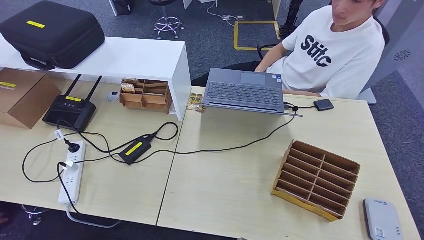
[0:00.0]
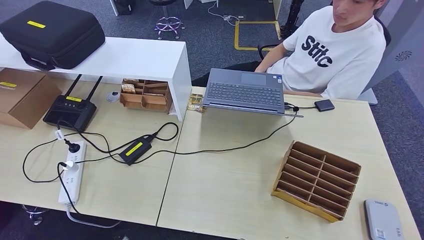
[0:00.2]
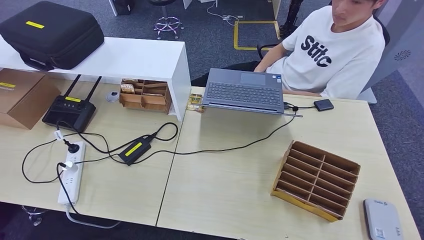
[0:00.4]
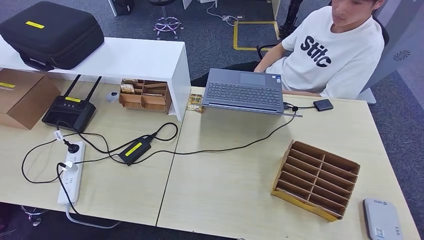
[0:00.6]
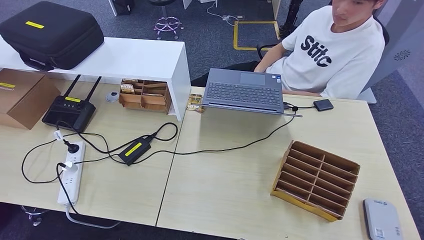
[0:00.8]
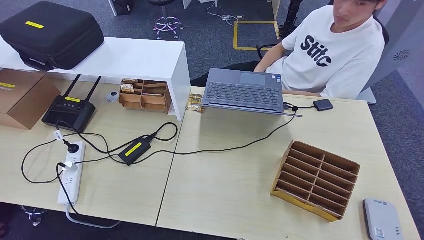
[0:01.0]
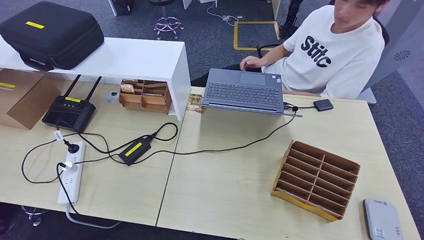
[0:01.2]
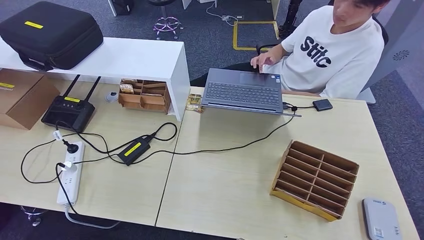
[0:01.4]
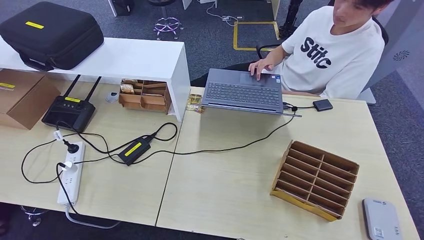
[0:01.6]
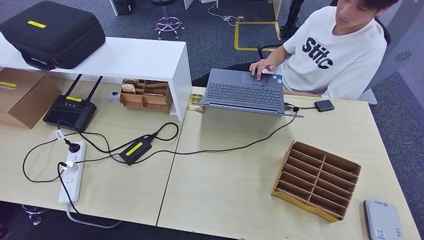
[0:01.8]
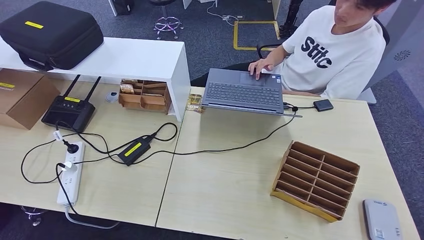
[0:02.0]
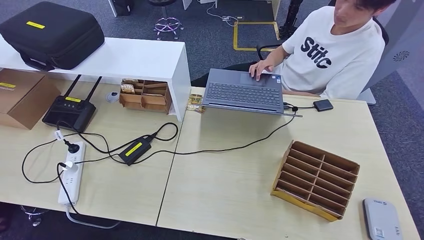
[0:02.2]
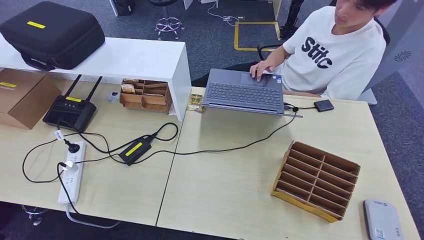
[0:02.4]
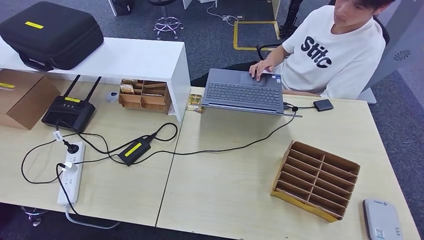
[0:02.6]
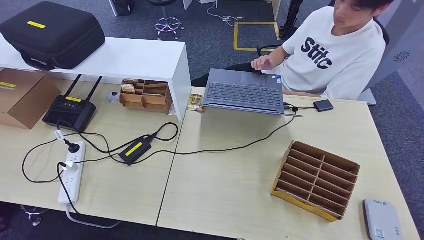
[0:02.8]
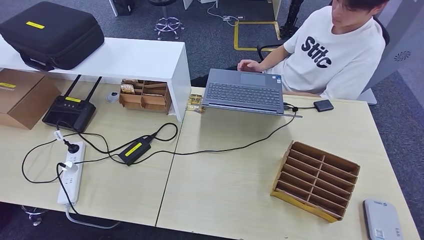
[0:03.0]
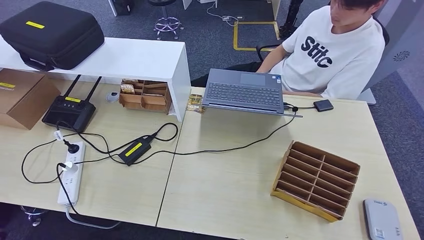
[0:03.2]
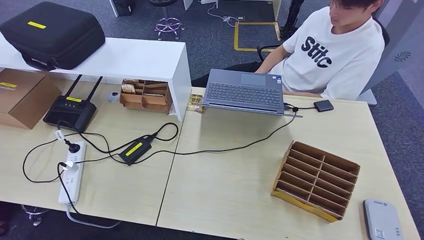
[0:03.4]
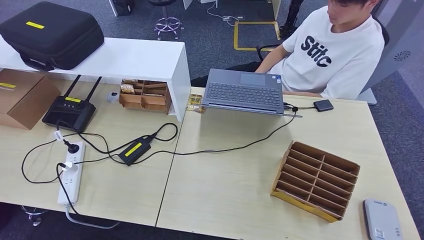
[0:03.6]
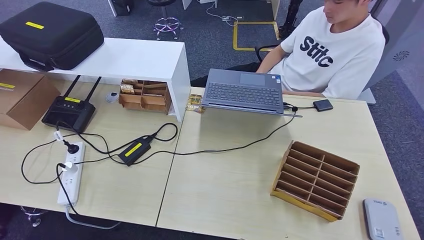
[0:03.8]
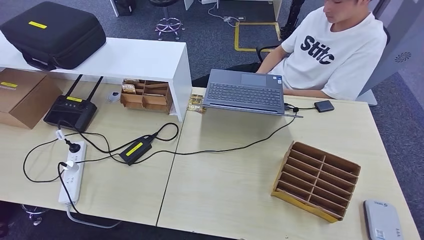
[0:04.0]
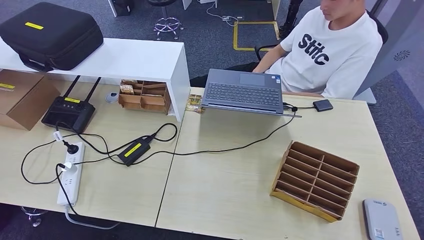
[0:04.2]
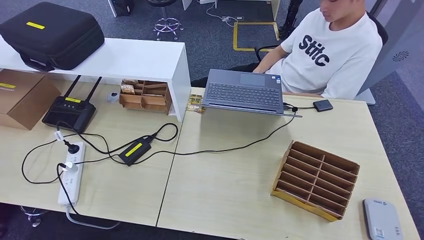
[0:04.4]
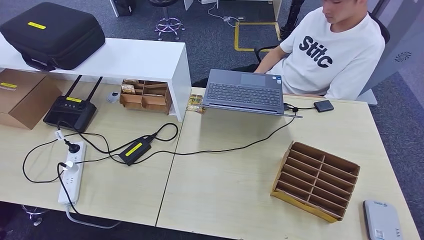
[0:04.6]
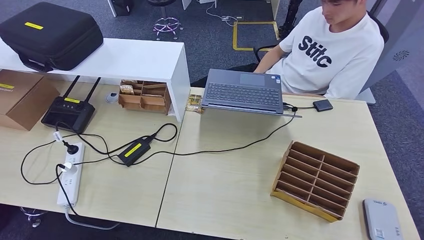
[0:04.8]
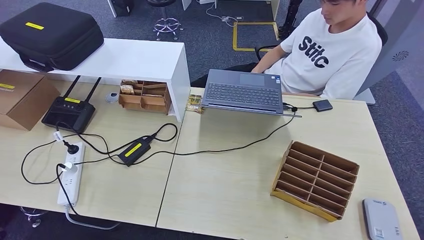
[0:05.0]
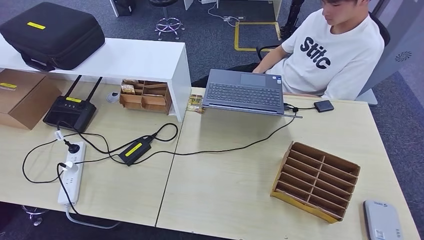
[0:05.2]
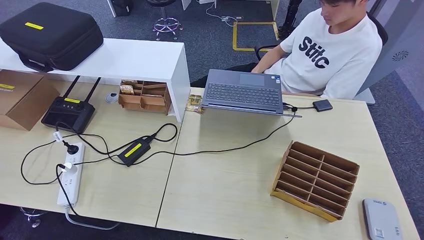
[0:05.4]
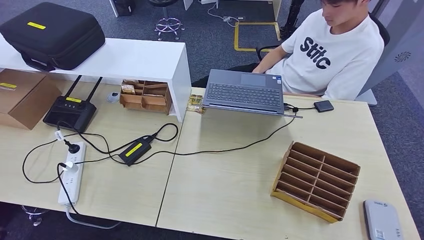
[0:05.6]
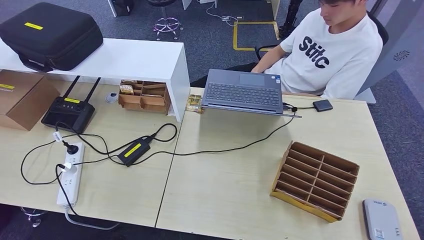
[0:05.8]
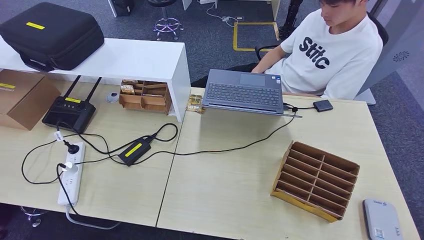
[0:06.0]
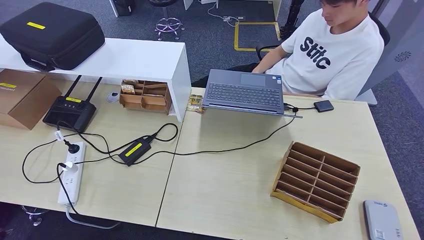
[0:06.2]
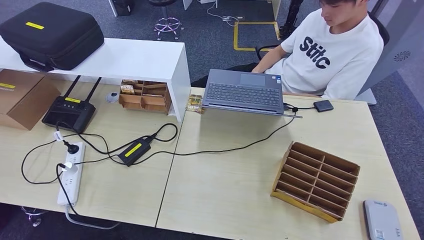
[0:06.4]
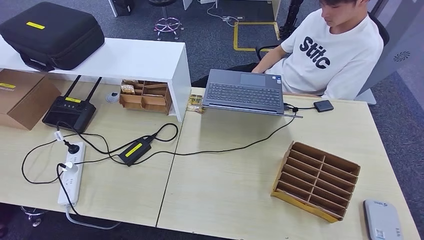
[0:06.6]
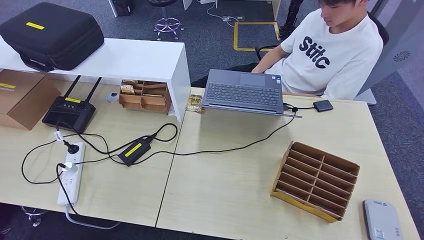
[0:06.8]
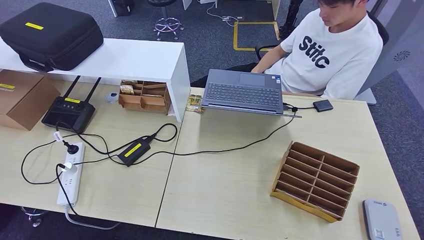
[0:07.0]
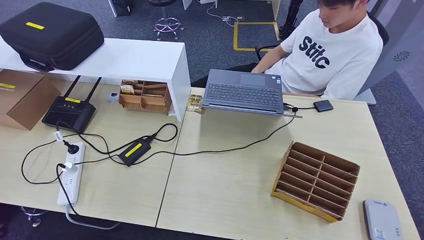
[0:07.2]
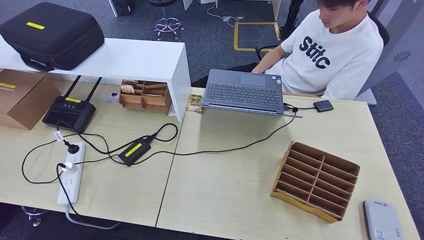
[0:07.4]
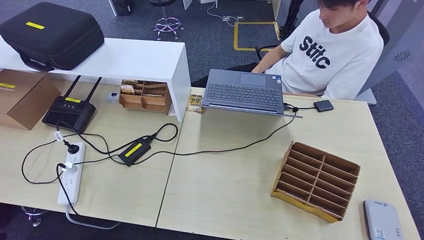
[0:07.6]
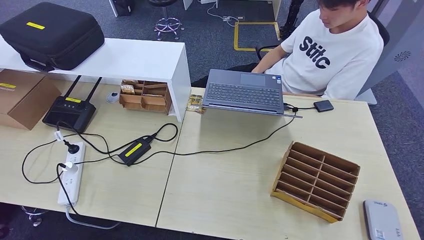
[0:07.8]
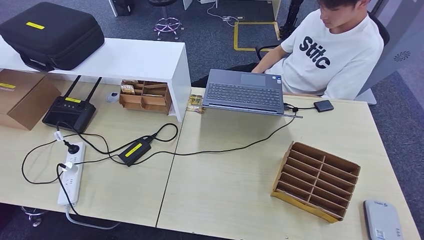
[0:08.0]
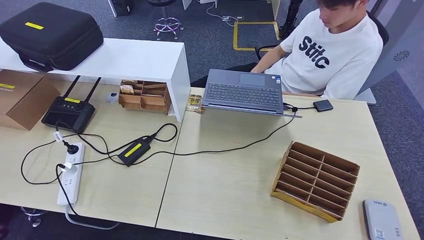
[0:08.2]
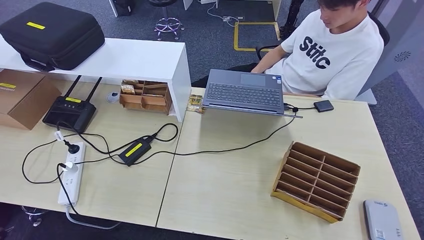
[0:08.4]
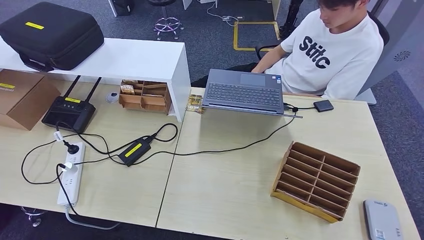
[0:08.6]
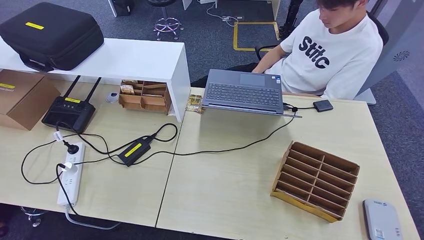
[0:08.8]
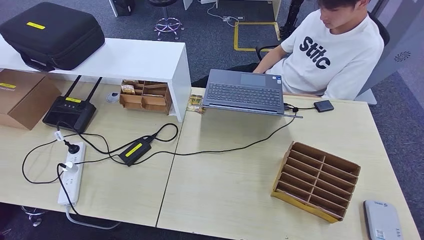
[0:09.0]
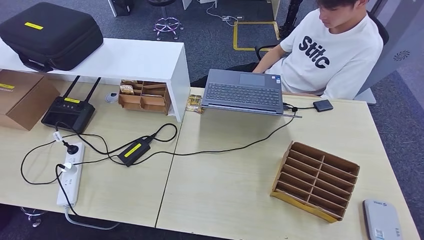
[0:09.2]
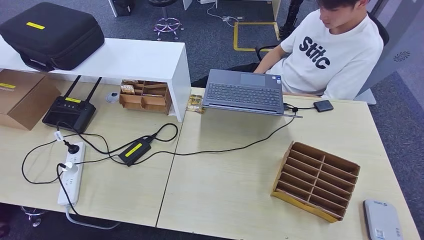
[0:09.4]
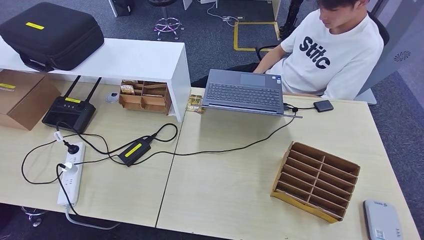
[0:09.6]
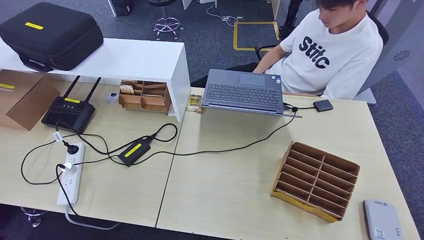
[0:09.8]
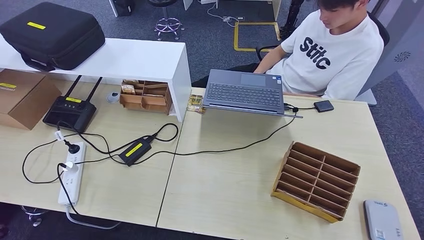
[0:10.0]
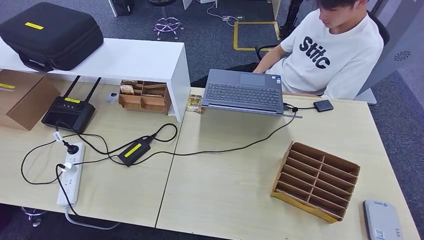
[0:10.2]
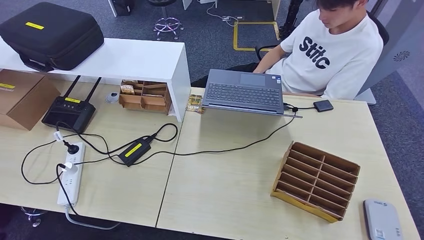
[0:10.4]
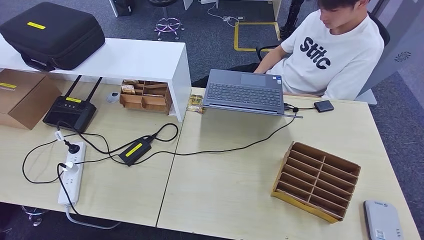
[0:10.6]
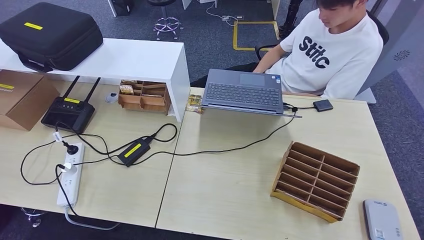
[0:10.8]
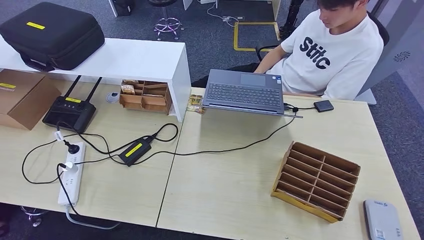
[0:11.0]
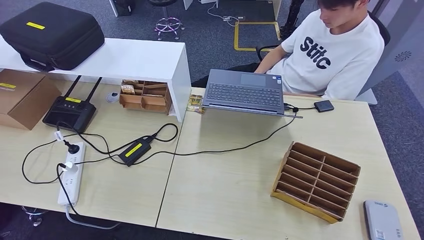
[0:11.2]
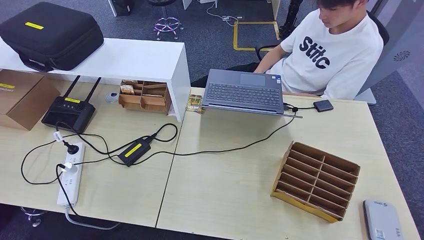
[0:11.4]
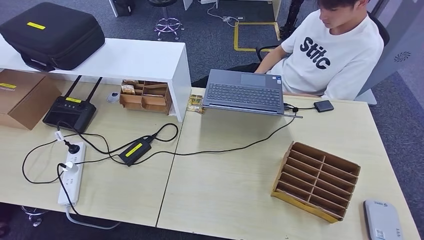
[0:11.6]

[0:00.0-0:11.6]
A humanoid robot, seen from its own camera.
Step, 0:00.0 to 0:11.6: Hand the room key to the person.
0:05.8 to 0:07.2: The hands make only small movements.

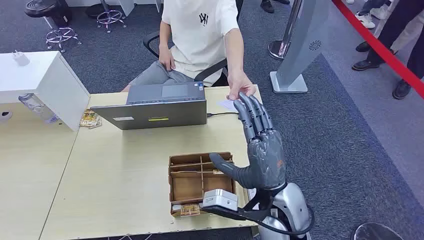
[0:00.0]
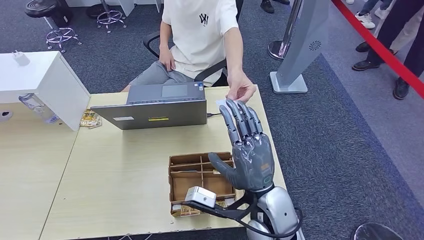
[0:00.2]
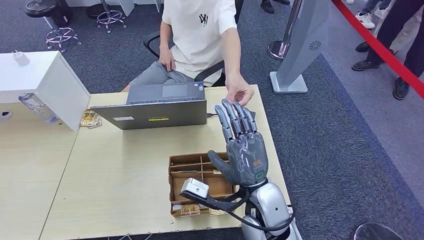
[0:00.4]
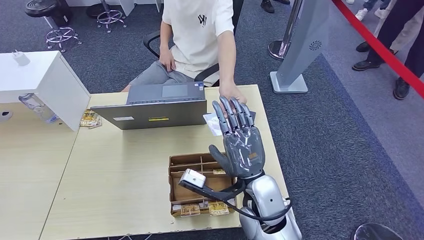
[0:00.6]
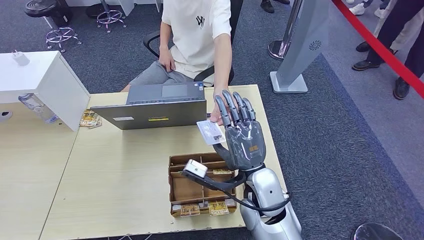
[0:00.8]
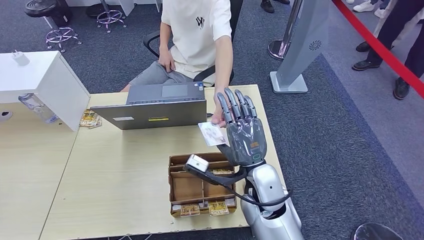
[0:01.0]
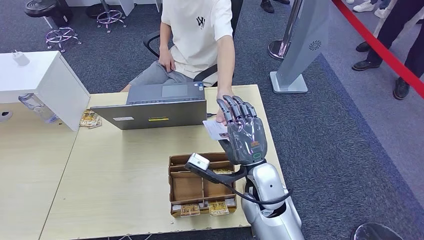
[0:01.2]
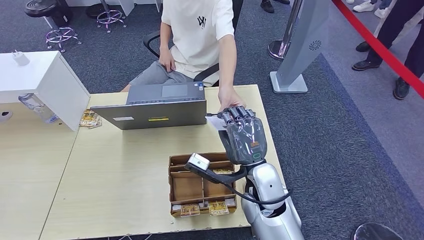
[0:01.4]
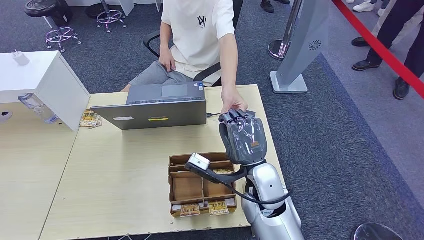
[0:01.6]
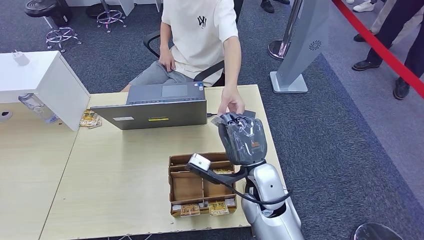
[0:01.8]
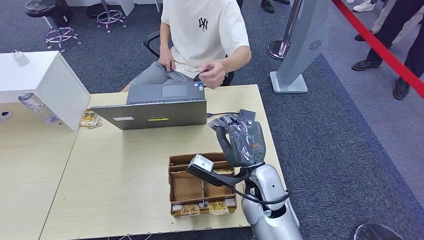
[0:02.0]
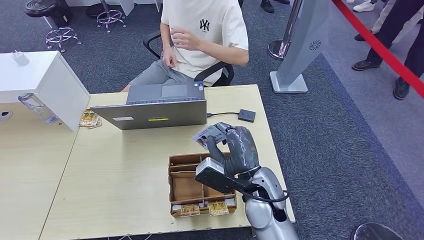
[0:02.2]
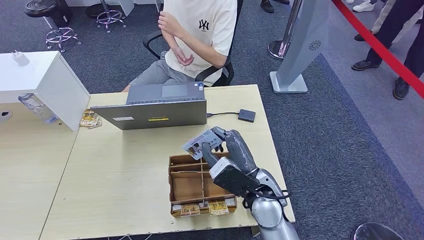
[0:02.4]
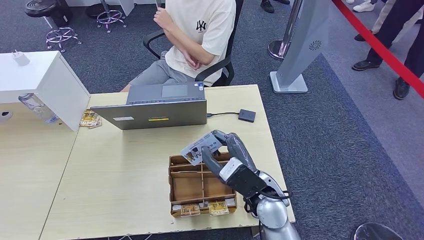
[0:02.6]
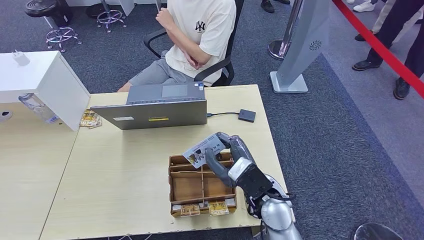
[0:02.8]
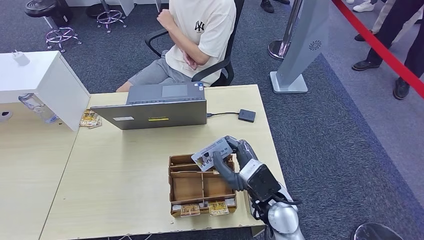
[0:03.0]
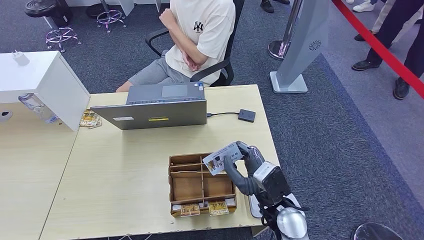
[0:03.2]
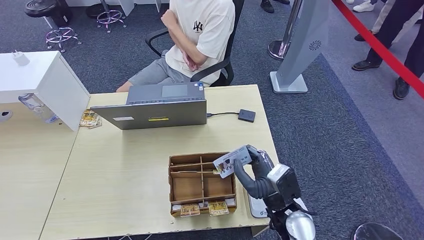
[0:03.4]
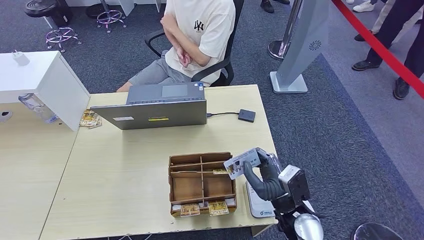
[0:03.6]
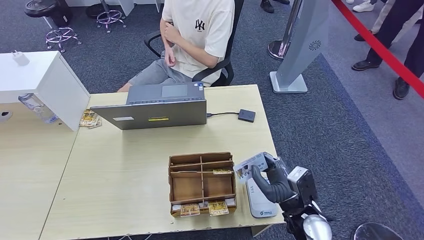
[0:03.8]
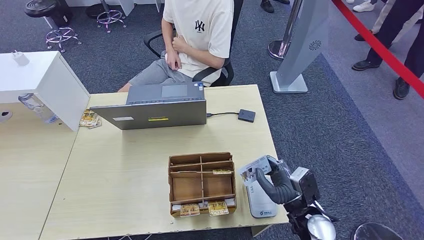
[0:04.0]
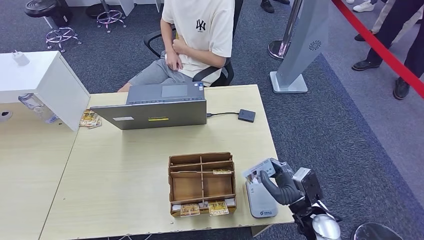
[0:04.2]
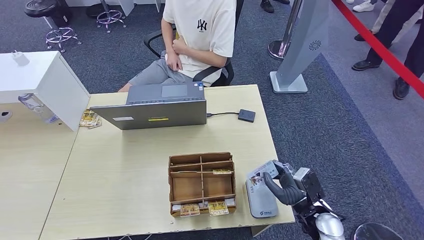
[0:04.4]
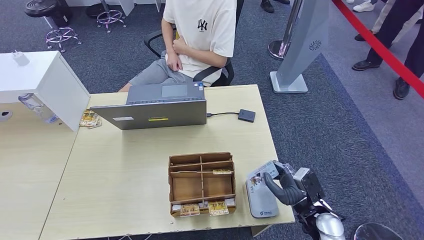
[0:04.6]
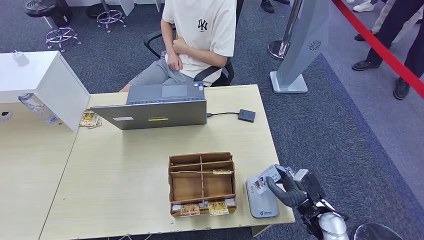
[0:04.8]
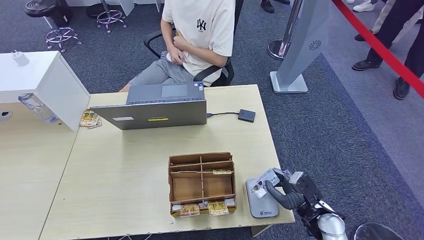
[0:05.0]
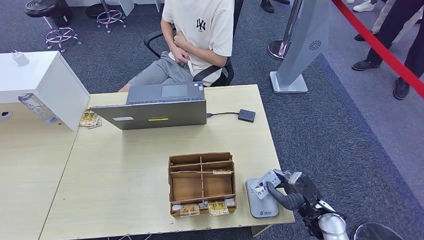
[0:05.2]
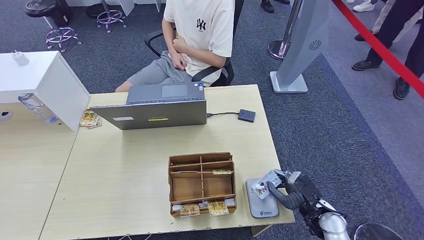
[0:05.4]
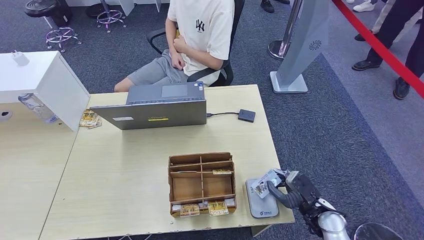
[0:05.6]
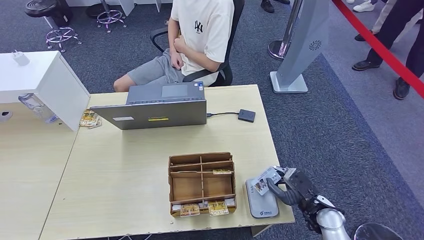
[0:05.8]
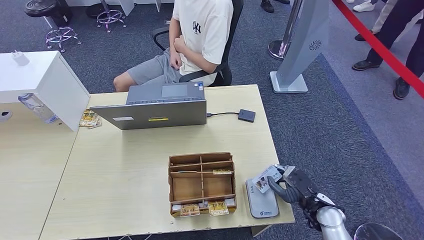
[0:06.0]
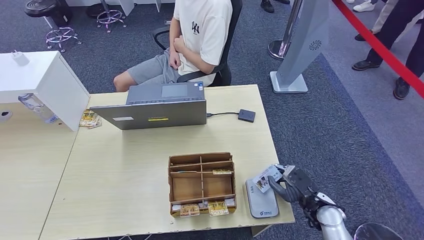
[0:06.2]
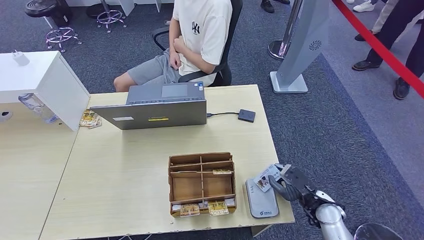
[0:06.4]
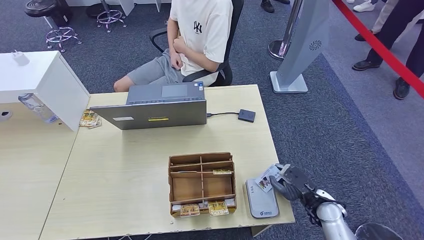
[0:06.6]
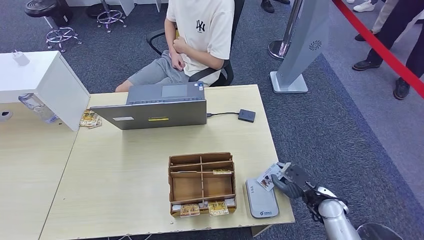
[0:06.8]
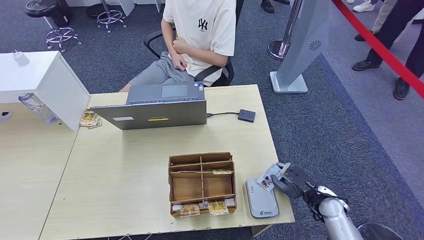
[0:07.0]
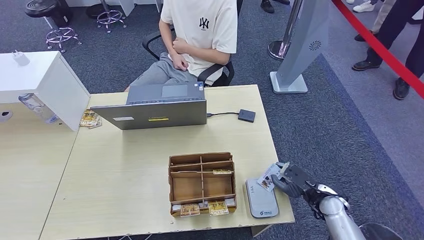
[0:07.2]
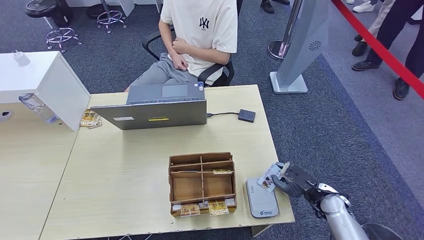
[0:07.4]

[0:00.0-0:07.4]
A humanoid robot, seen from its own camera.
Step, 0:00.0 to 0:02.4: Take the ID card from the person's hand.
0:03.0 to 0:04.4: The right hand heads to the right and downward, covering roughly 20 cm.
0:04.4 to 0:06.0: The hands stay close to where they were, moving slightly.
0:06.0 to 0:07.4: The hands stay close to where they were, moving slightly.
